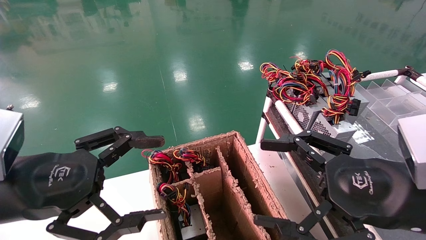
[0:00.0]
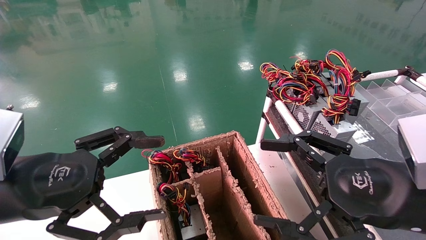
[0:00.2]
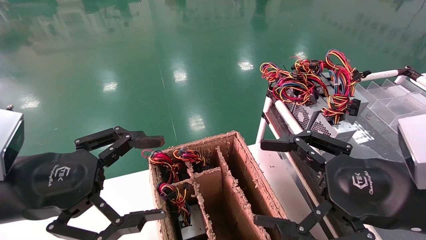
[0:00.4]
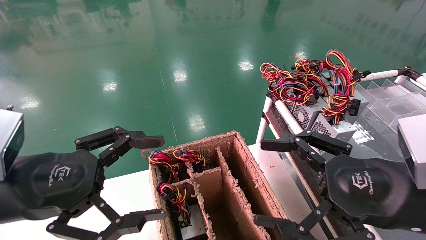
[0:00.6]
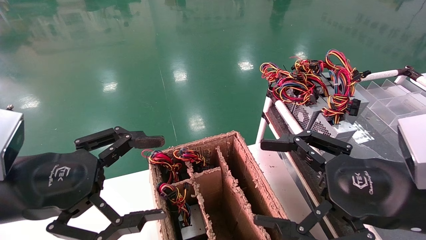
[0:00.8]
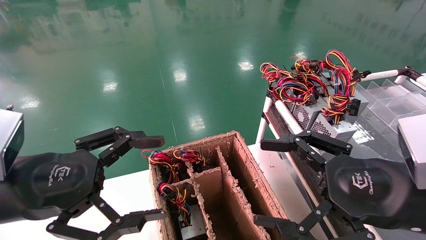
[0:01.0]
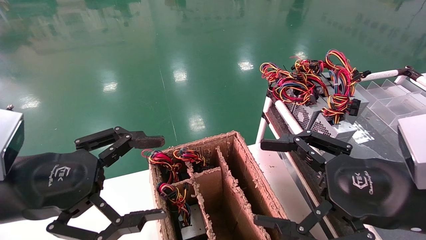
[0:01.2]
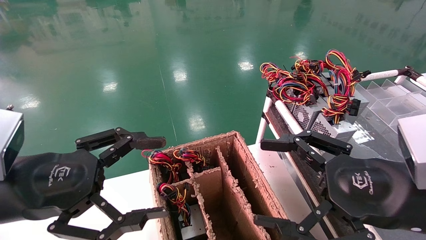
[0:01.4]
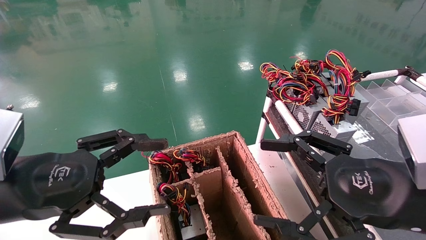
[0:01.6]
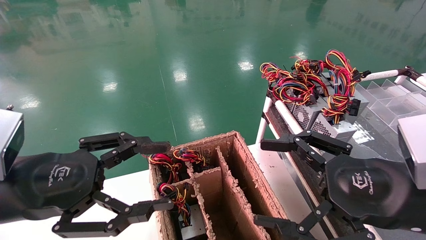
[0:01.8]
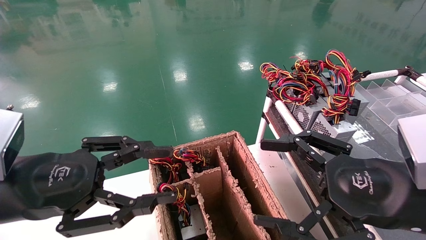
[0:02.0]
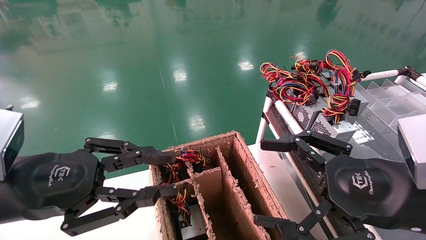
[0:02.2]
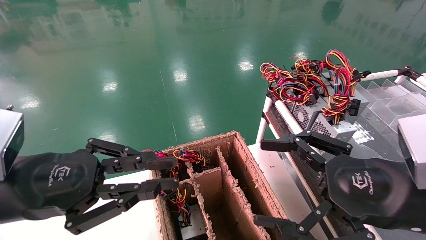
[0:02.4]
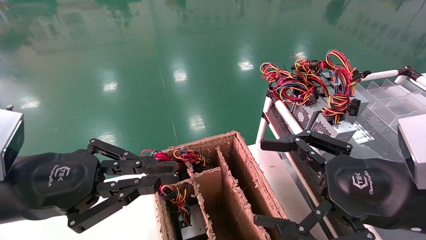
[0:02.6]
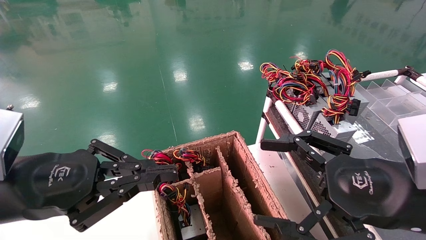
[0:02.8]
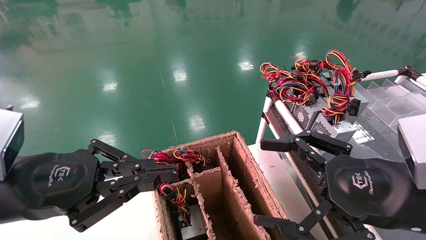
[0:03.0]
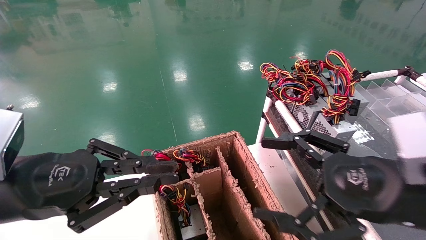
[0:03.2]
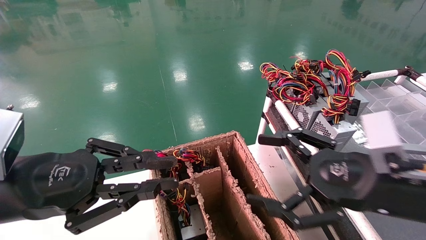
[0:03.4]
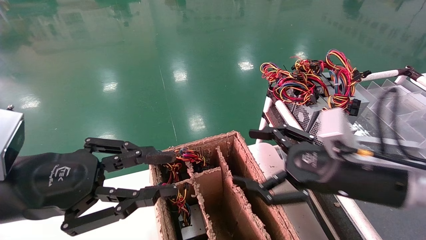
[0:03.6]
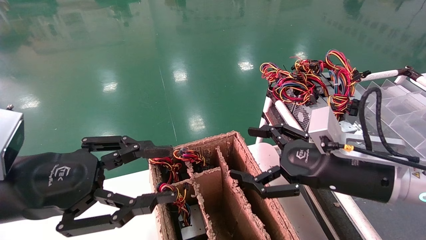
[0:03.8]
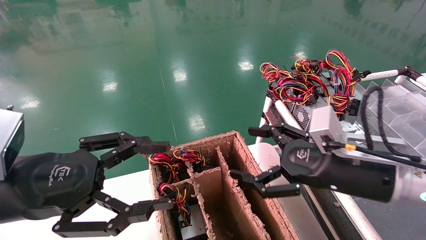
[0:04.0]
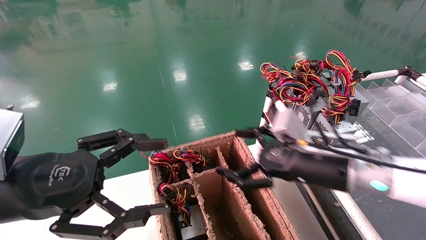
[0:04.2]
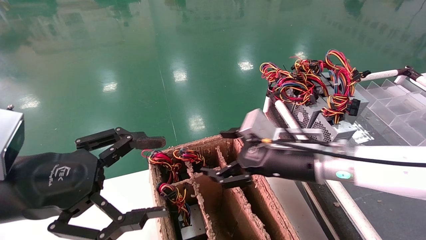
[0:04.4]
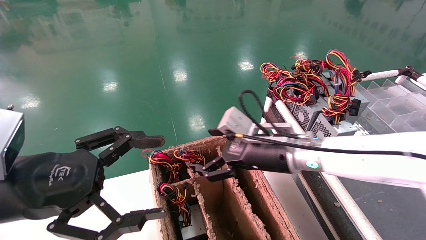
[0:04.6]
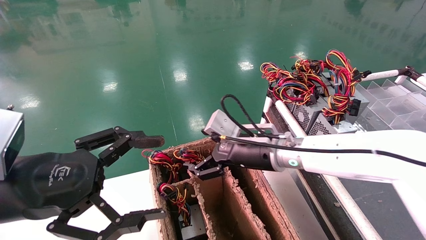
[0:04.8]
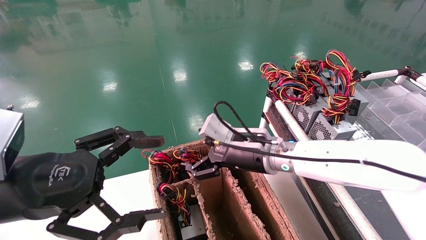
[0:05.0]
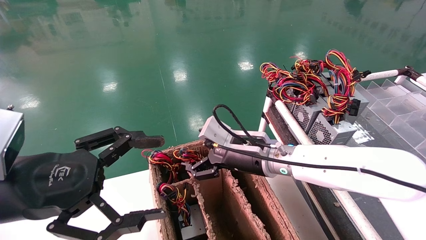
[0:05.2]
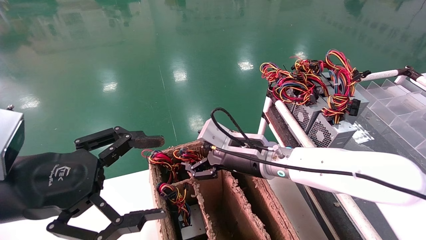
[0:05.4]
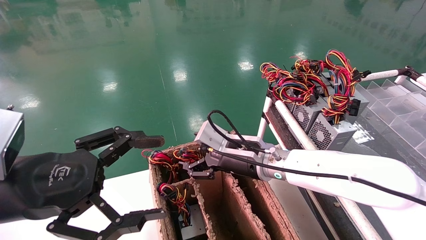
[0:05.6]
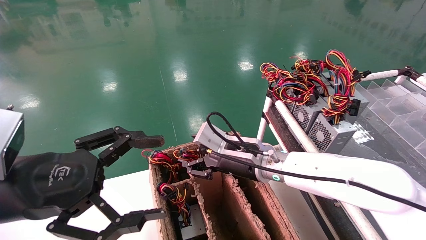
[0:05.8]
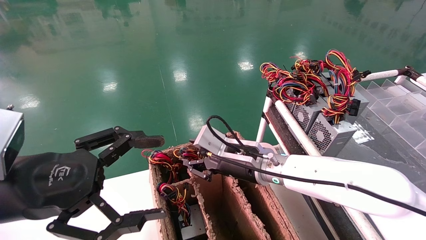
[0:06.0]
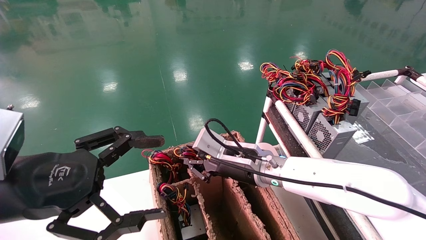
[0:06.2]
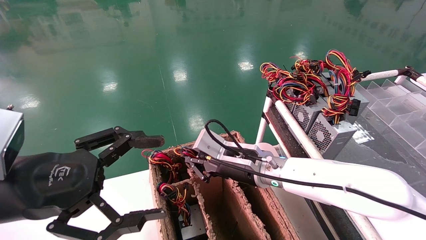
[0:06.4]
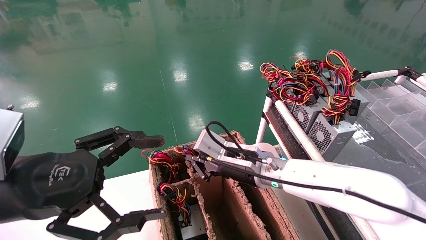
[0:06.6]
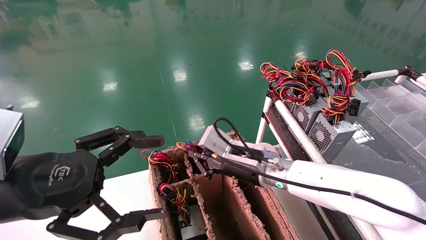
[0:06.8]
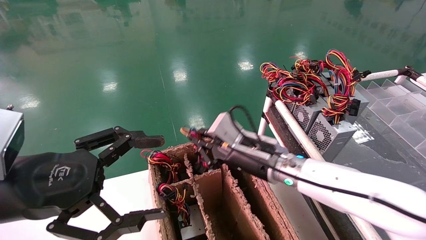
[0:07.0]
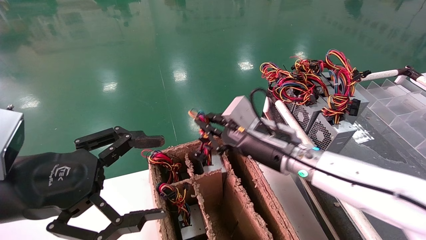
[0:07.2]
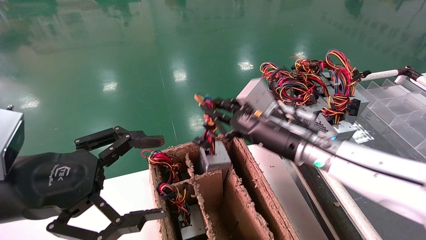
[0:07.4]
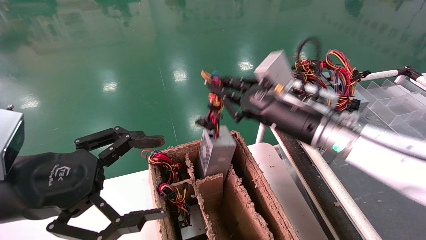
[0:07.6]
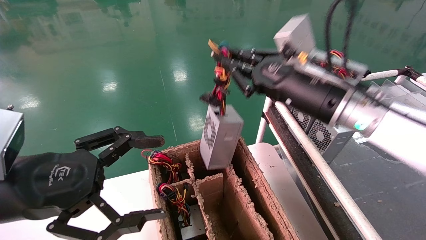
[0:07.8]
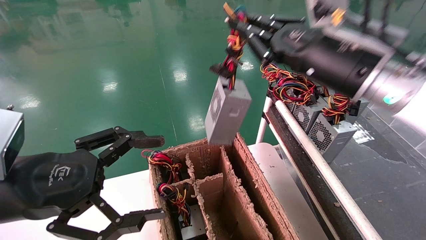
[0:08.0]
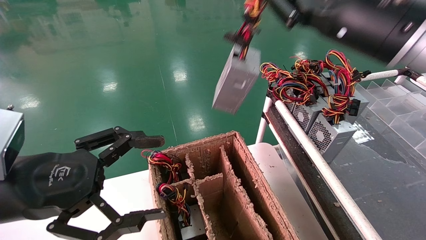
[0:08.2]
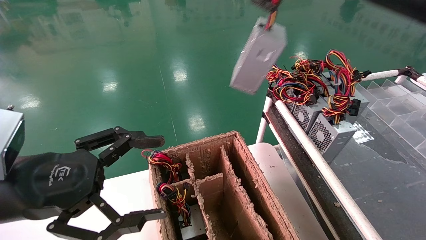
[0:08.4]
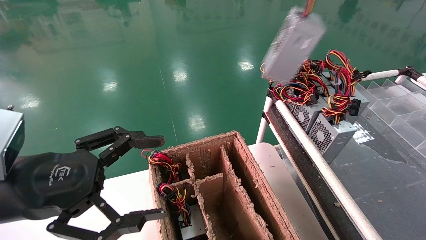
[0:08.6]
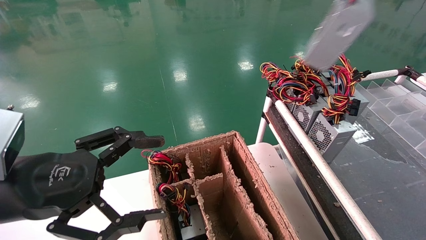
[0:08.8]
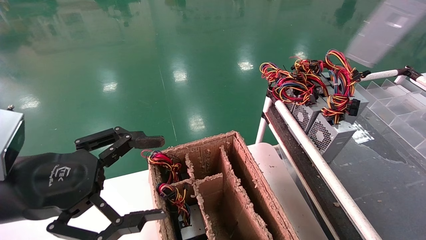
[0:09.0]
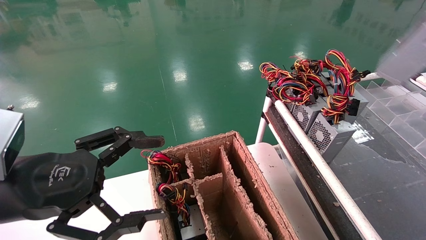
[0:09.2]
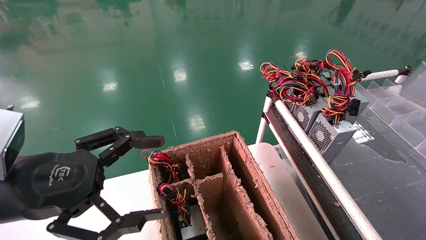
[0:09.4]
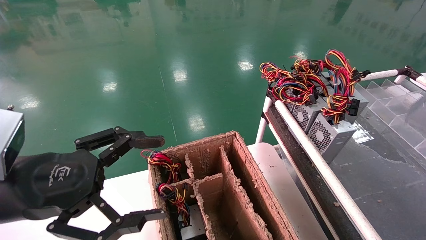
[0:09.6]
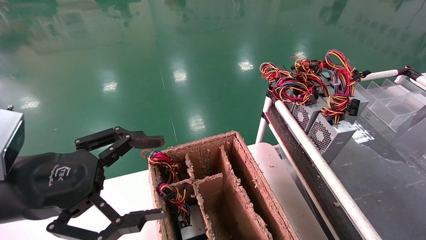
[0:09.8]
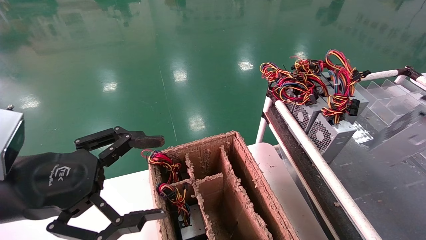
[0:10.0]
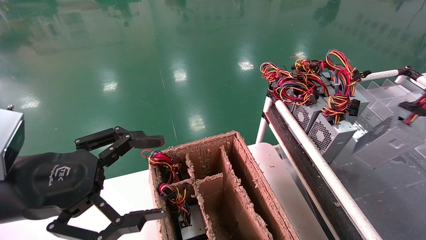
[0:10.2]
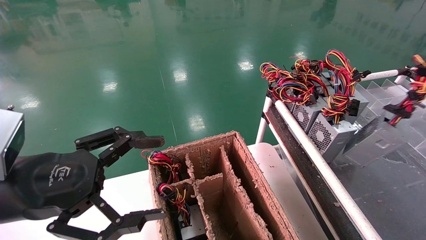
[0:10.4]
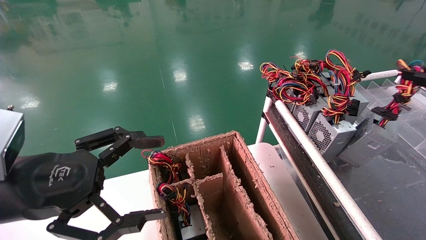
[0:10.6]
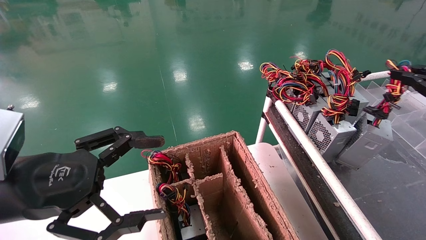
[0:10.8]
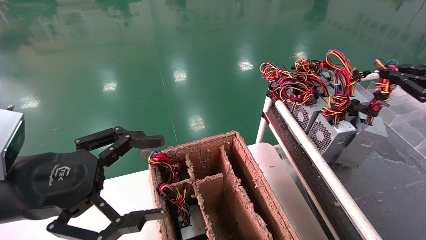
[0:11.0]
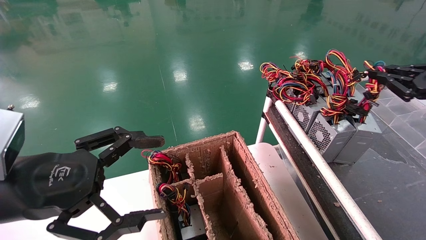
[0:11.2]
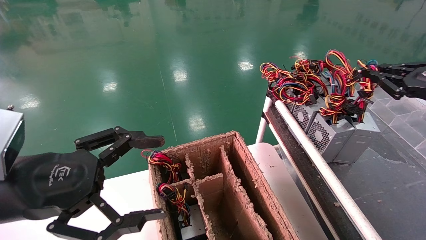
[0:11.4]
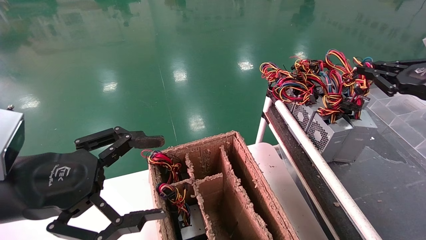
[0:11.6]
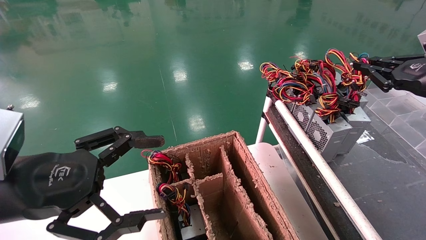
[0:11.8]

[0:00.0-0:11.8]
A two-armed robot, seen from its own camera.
Step, 2.8 to 6.6 s: Grab and lift the power supply from the large box.
0.0 to 1.4 s: Neither gripper changes place.
1.4 to 3.0 s: The left gripper closes its fingers.
3.0 to 4.4 s: The right gripper goes roughly 20 cm forward and to the left. Meanwhile the left gripper opens its fingers.
4.4 to 6.0 s: The right gripper travels to the left by about 10 cm, and closes its fingers.
6.0 to 7.4 s: The right gripper is displaced upward and to the right by approximately 10 cm, and closes its fingers.
7.4 to 8.8 s: The right gripper heads to the right and upward, covering approximately 35 cm.
8.8 to 10.4 s: The right gripper travels downward and to the right by roughly 20 cm.
10.4 to 11.8 s: The right gripper travels forward and to the left by about 10 cm.

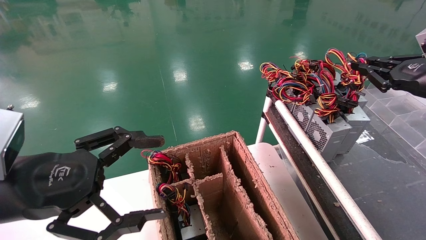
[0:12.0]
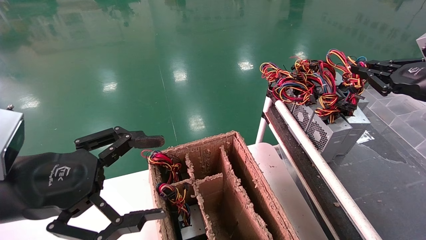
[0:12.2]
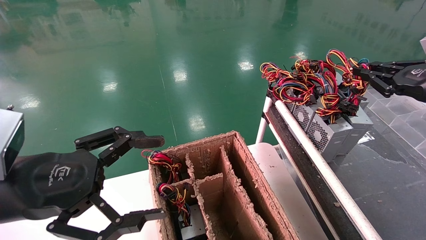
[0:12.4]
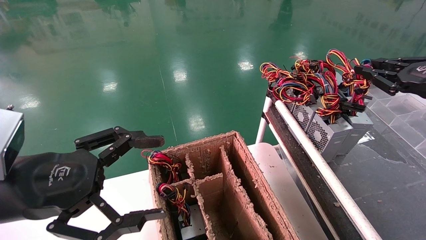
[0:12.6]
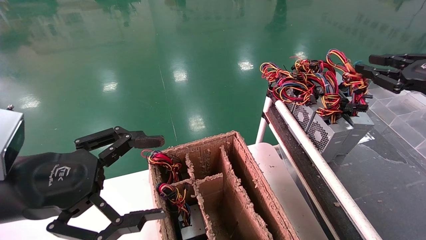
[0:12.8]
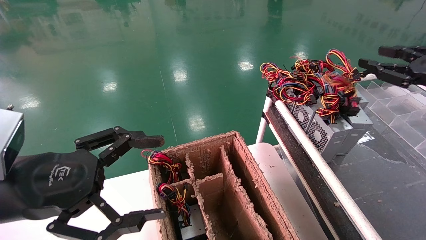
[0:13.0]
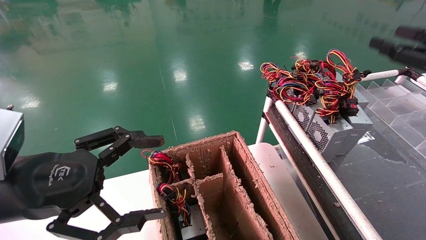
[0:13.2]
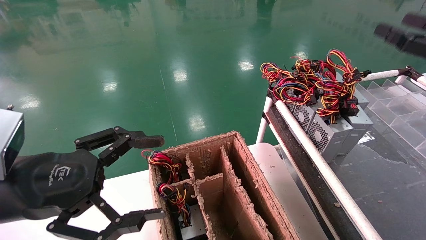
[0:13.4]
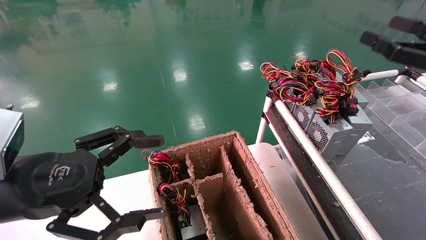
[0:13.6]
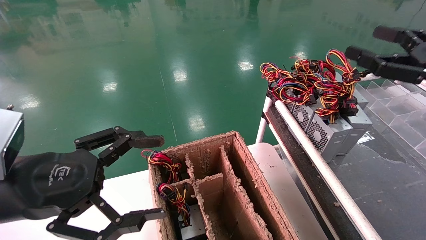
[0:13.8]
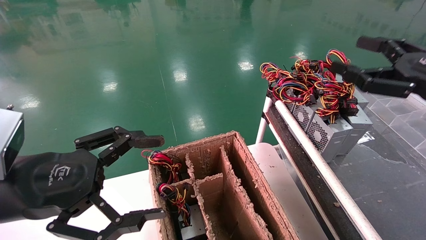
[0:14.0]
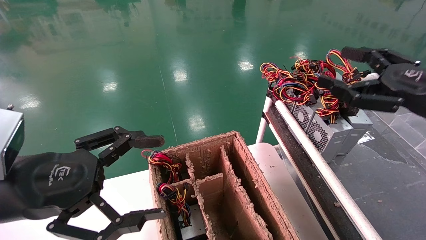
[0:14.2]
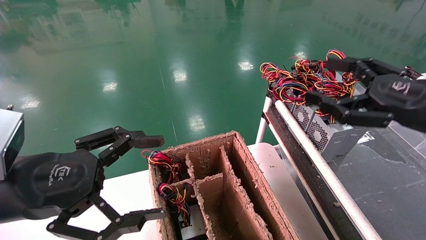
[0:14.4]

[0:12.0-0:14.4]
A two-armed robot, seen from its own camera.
12.0 to 13.2 s: The right gripper opens its fingers.
13.2 to 14.4 s: The right gripper heads to the left, covering about 10 cm, and opens up.

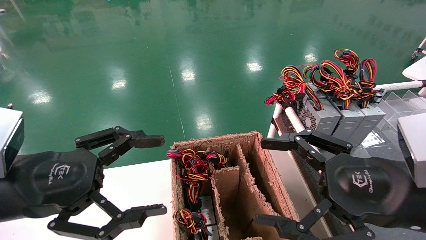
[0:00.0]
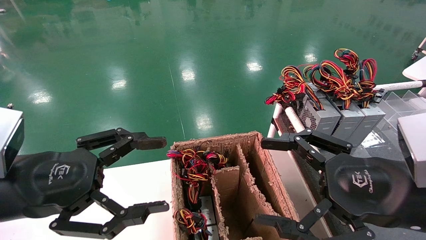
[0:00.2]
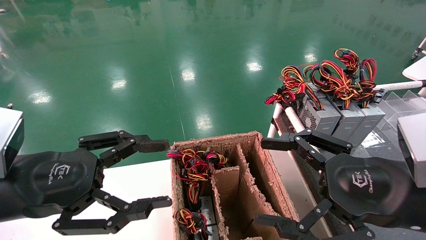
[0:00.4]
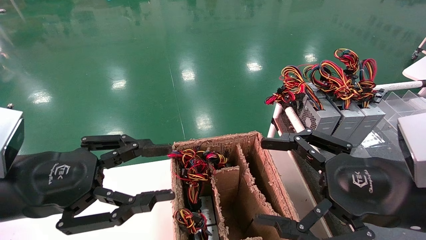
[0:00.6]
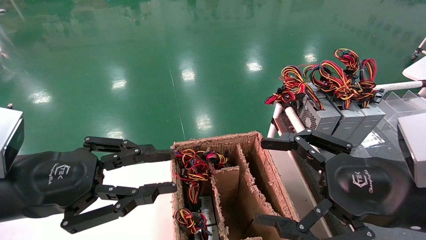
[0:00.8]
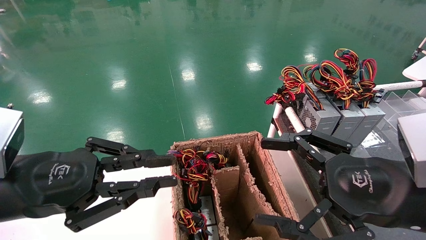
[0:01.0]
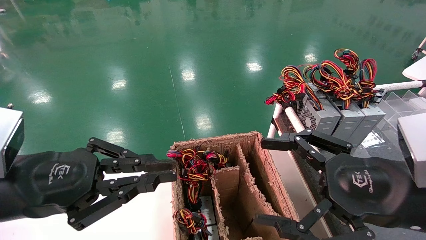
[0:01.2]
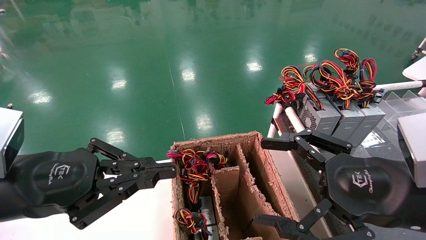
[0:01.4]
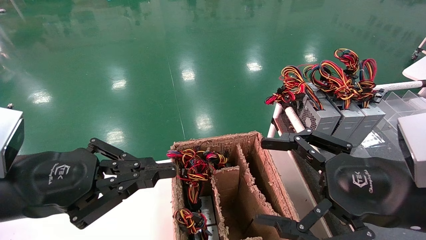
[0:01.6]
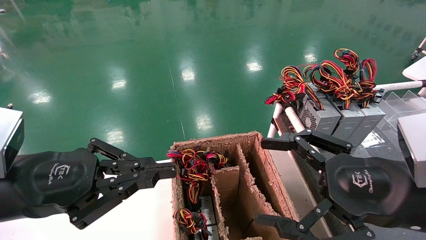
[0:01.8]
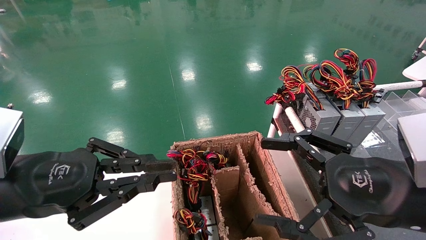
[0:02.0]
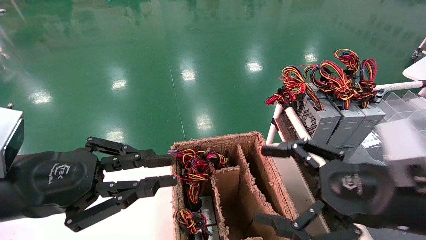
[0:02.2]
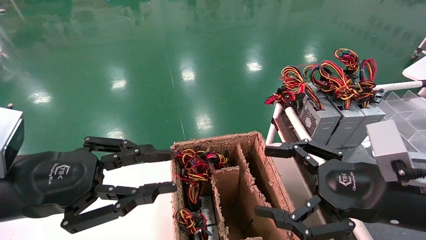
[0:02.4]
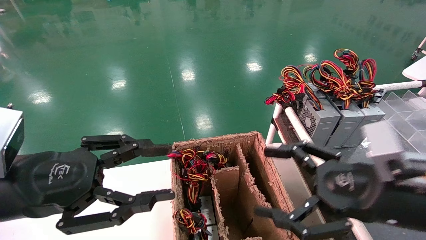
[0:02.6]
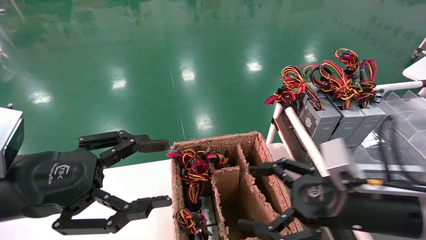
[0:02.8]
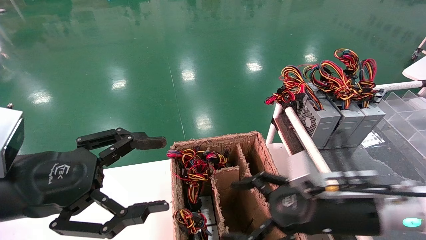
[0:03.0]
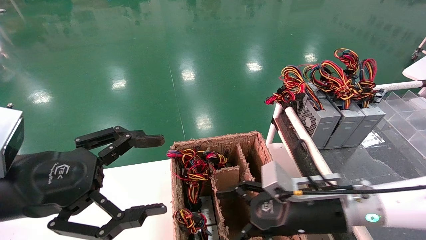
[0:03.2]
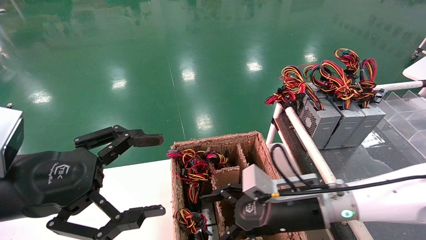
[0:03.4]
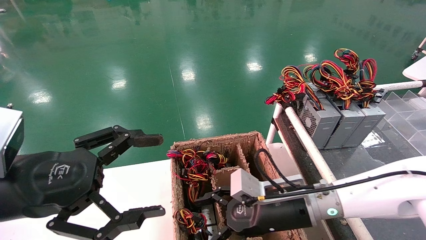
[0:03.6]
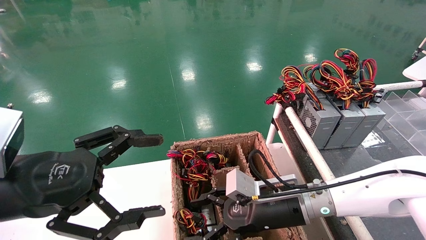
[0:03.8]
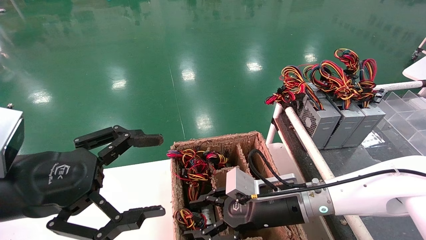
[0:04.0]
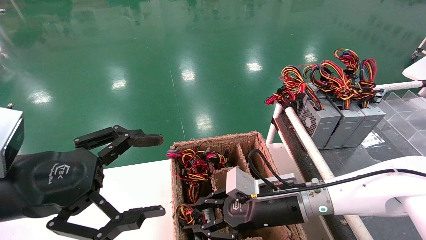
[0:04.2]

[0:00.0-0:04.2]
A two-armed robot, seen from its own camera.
0.0 to 1.4 s: The left gripper closes its fingers.
1.4 to 2.8 s: The left gripper opens up, while the right gripper shifts approximately 10 cm downward and forward.
2.8 to 4.2 s: The right gripper moves to the left, forward and downward, approximately 15 cm, and closes; the left gripper opens its fingers.
